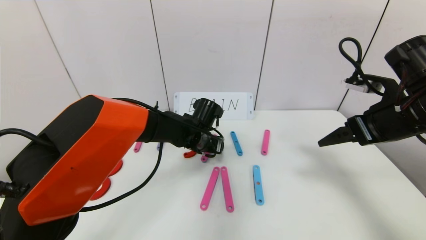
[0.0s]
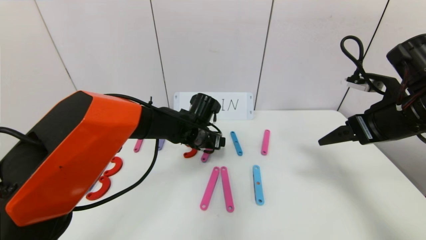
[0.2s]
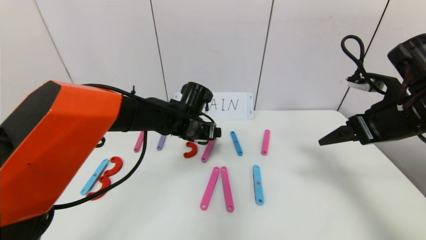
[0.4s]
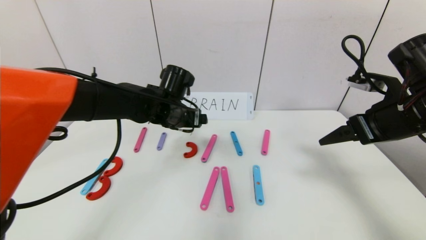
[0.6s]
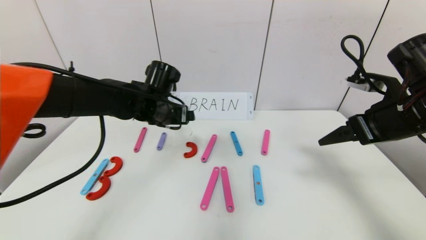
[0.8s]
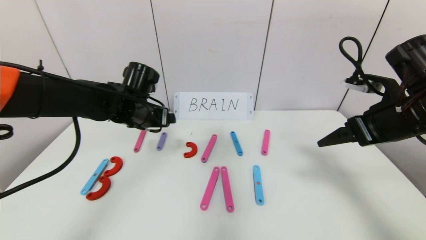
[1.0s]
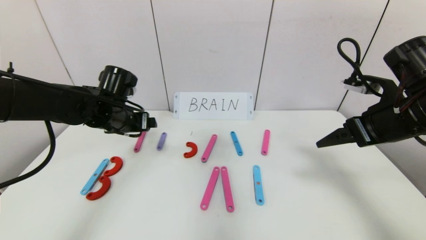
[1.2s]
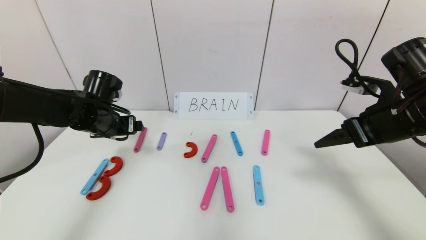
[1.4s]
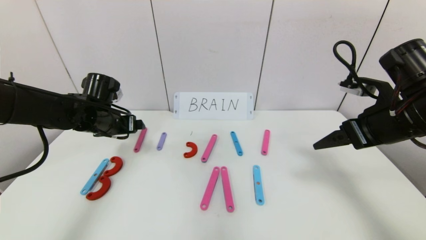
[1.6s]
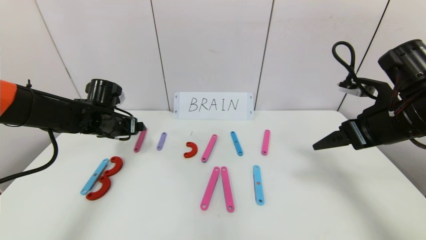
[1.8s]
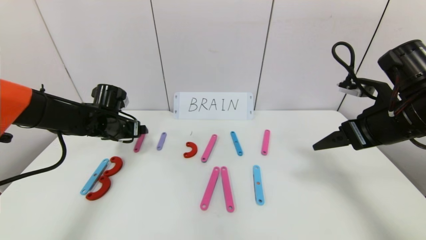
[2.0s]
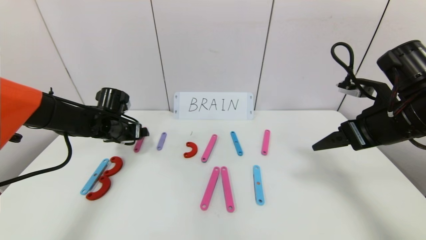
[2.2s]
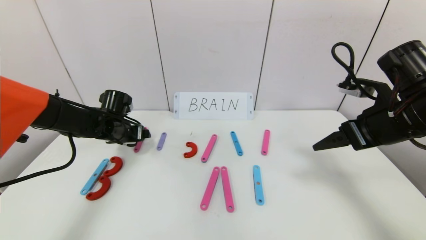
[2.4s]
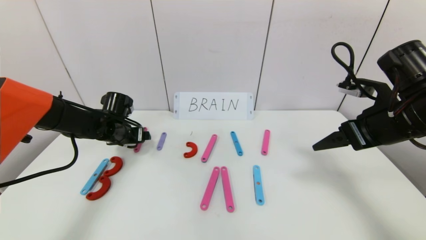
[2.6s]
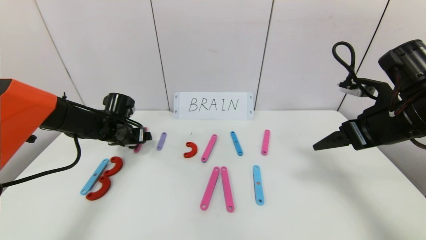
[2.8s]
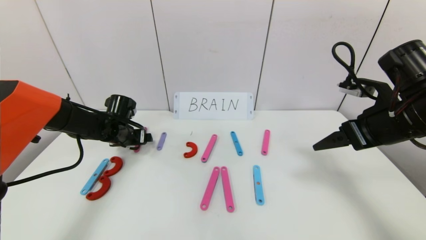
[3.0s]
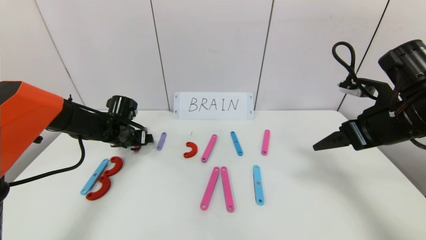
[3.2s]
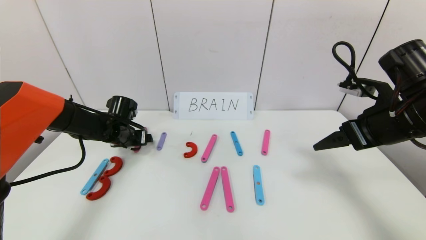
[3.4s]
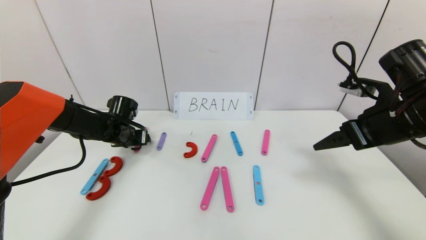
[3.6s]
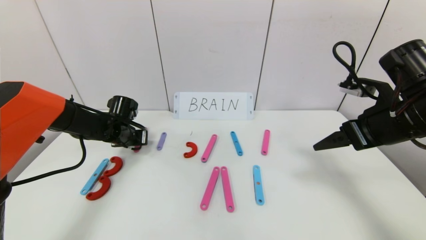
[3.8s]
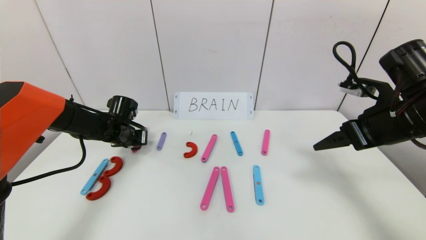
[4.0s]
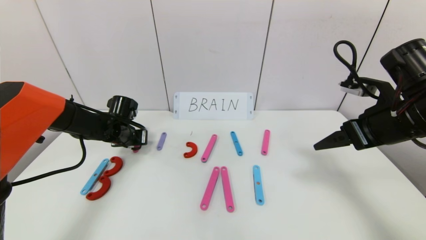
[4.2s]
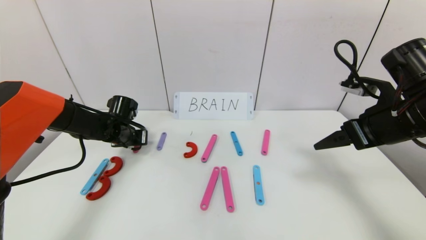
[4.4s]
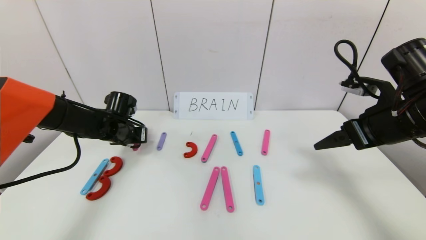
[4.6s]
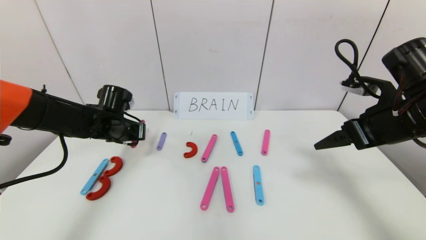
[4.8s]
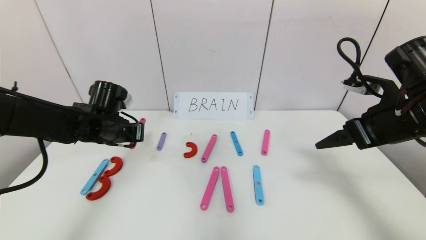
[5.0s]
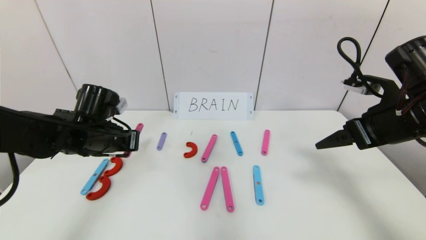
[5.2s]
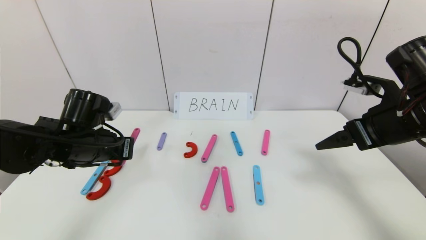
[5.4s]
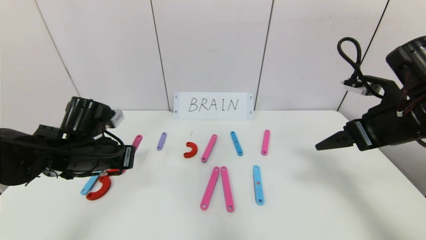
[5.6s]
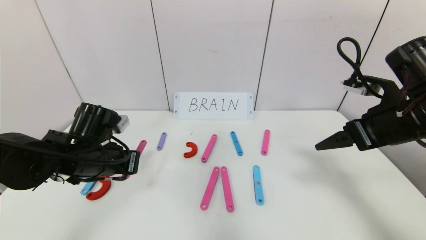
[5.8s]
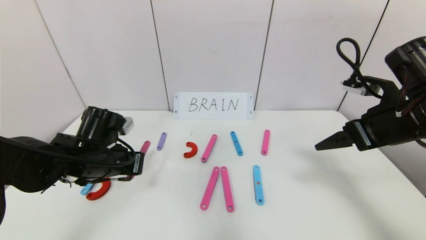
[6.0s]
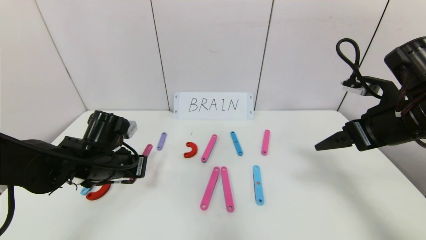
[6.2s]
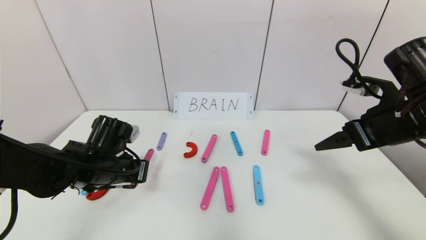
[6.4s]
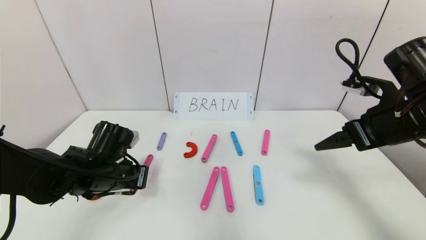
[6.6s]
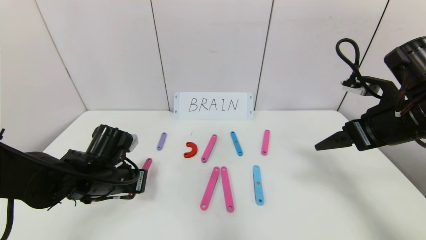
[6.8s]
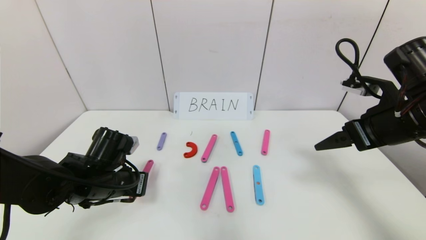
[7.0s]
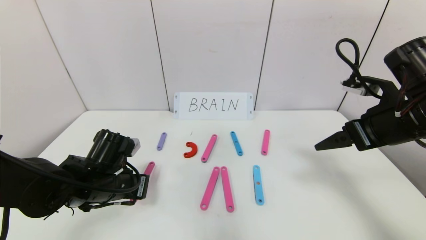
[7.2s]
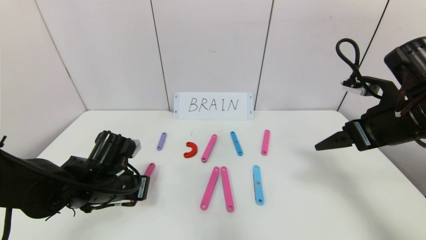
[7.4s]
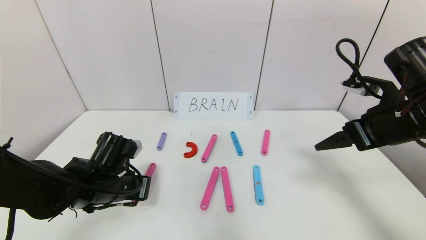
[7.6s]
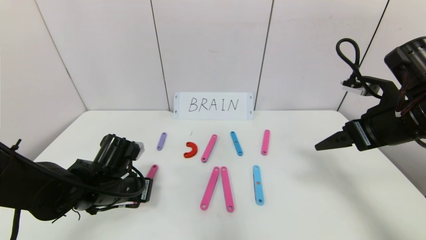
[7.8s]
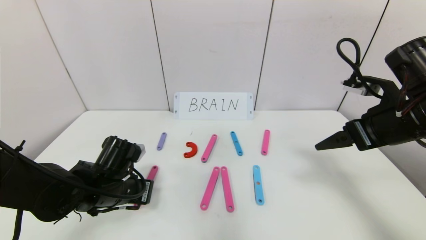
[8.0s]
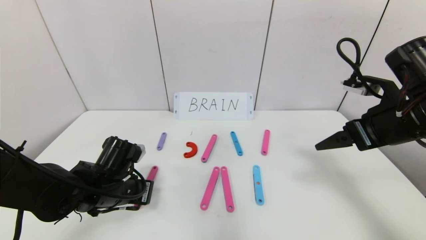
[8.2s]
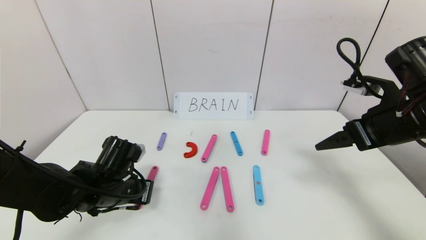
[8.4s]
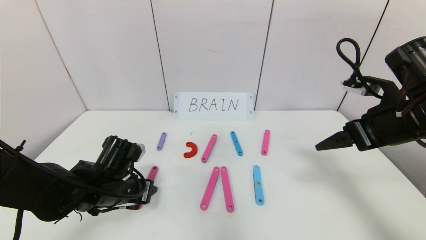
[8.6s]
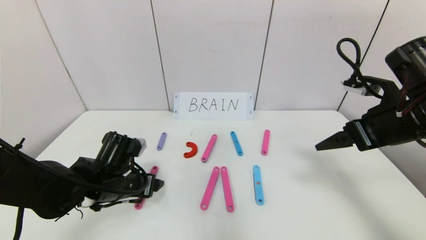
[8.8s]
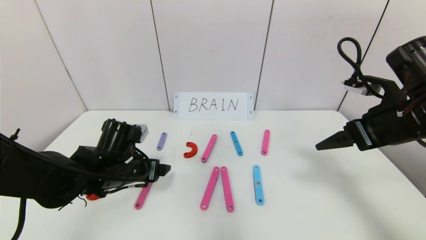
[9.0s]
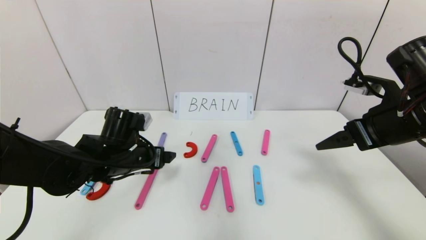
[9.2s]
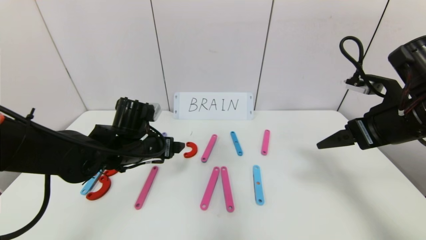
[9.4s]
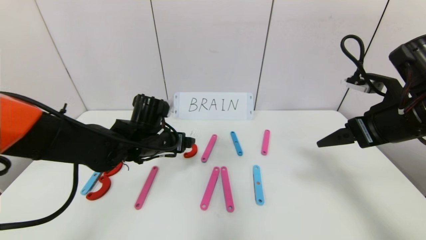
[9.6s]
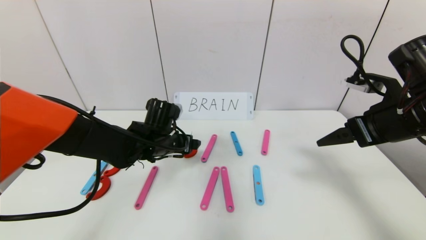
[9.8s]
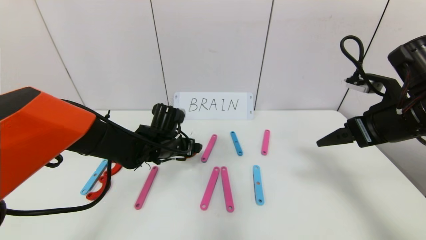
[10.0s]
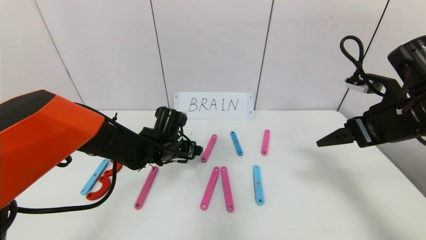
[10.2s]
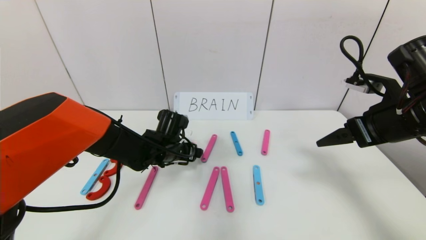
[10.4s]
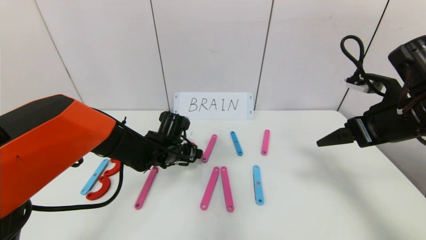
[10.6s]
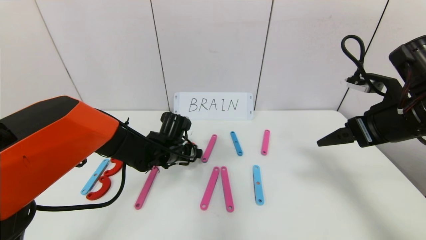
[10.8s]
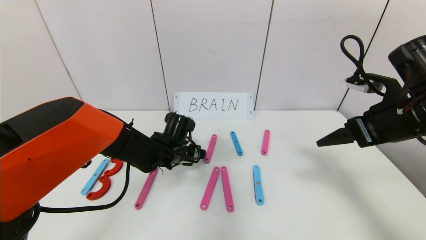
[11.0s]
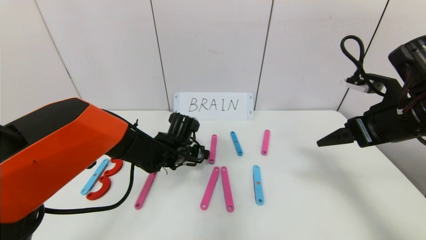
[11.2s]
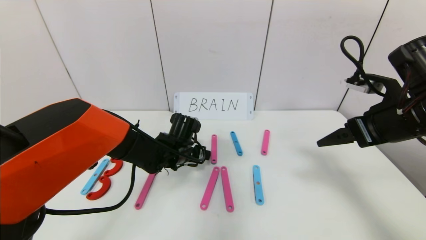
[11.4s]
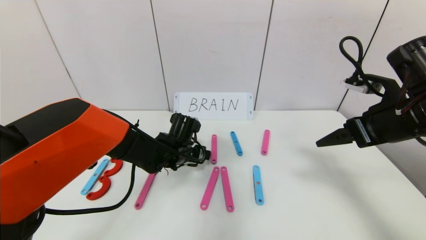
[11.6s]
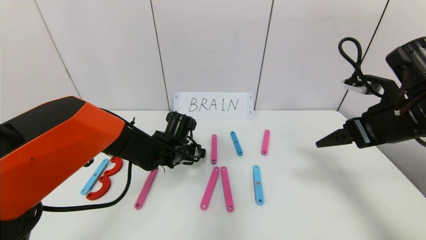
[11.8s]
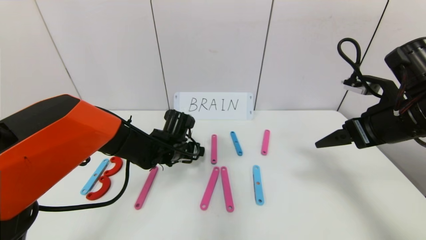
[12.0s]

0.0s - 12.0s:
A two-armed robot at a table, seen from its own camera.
Task of the whole recording: rearrange the word baai as brain.
0.0s - 1.6s: The left gripper is displaced to the left by some 20 cm.
1.6s - 3.0s: The left gripper is displaced downward by some 5 cm.
3.0s - 4.4s: The left gripper closes its fingers.
4.4s - 6.0s: The left gripper travels backward by some 15 cm.
6.0s - 7.6s: The grippers stay close to where they were, moving slightly.
7.6s - 9.0s: The left gripper opens up.
9.0s - 10.4s: The left gripper goes approximately 10 cm forward and to the right.
10.4s - 12.0s: The grippers move only a little.

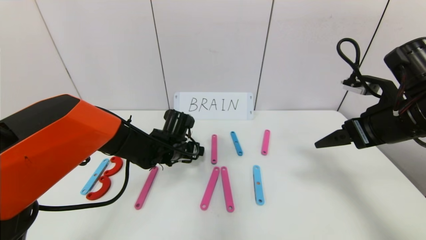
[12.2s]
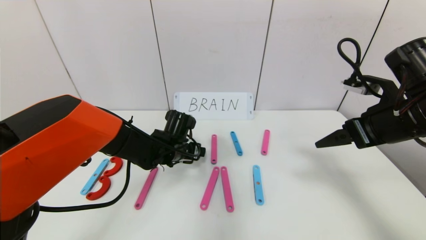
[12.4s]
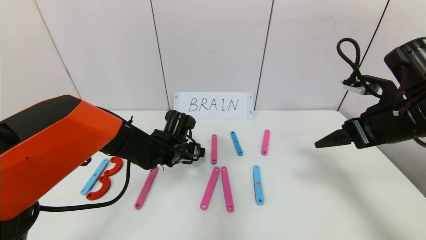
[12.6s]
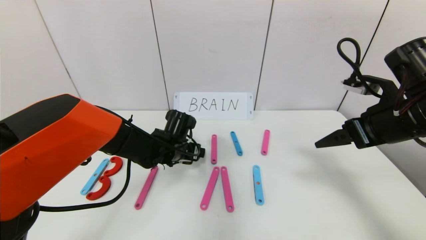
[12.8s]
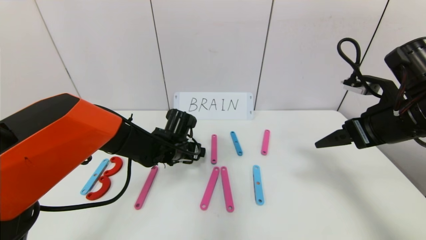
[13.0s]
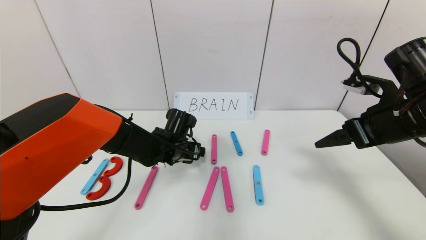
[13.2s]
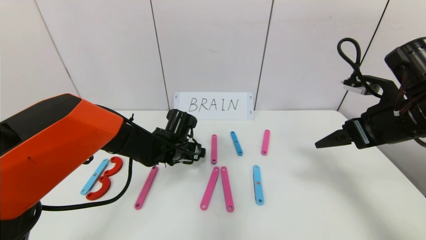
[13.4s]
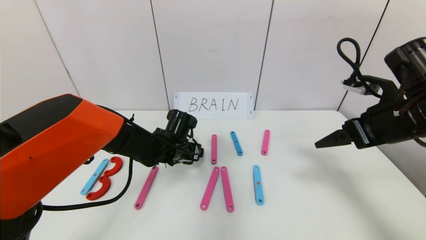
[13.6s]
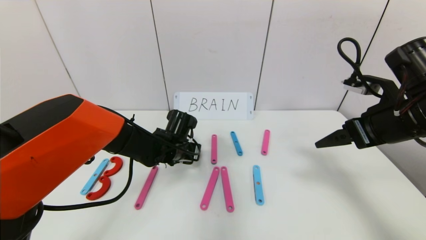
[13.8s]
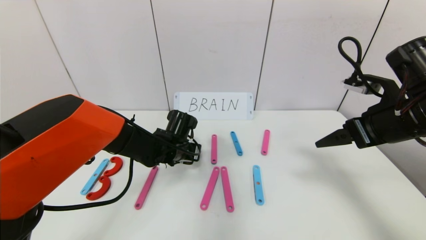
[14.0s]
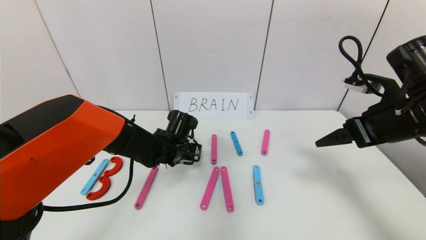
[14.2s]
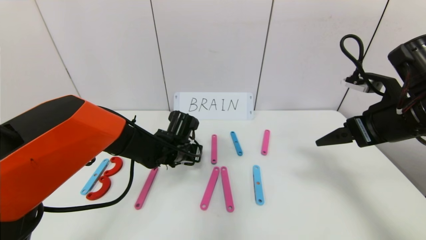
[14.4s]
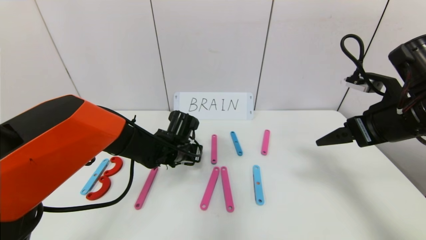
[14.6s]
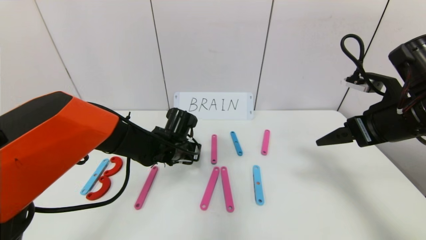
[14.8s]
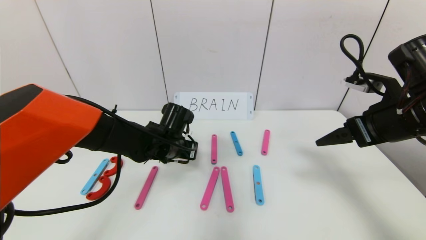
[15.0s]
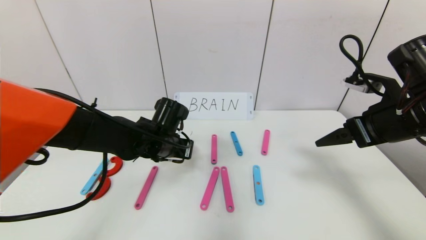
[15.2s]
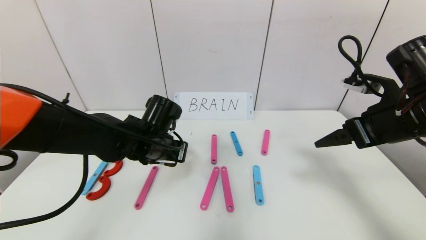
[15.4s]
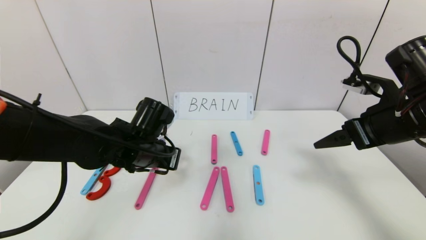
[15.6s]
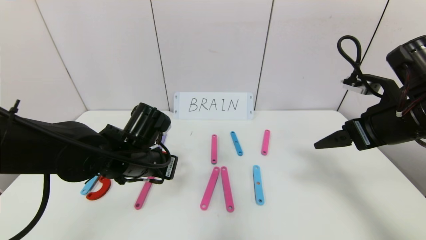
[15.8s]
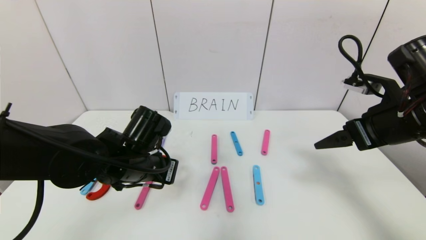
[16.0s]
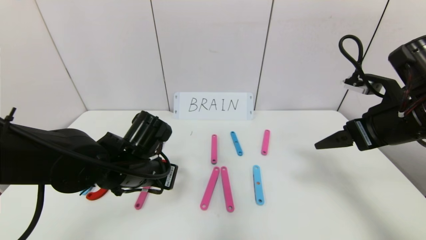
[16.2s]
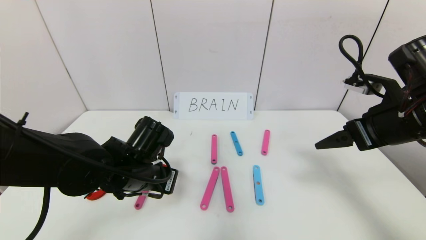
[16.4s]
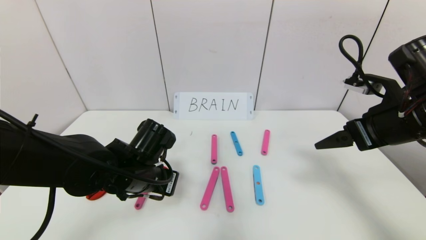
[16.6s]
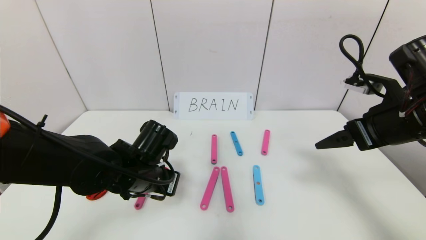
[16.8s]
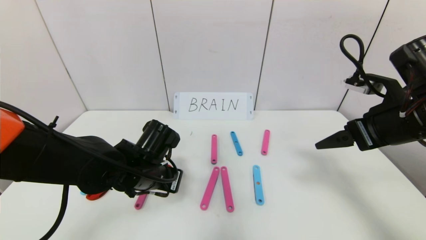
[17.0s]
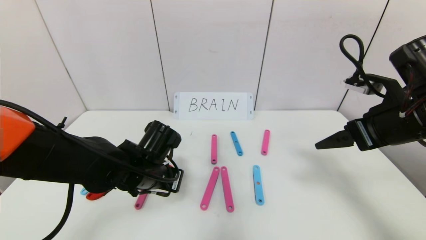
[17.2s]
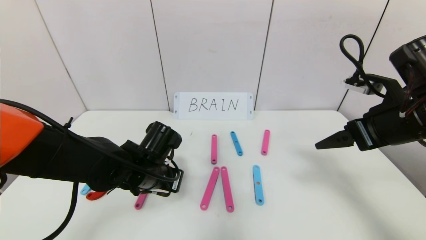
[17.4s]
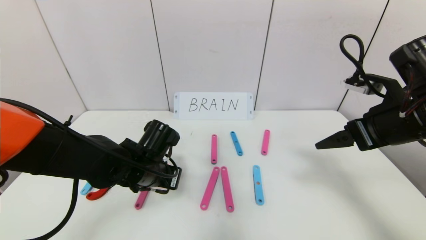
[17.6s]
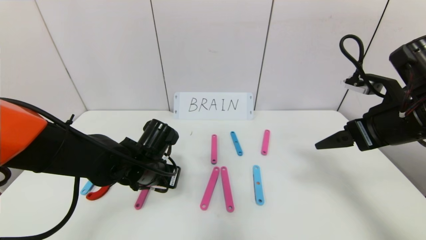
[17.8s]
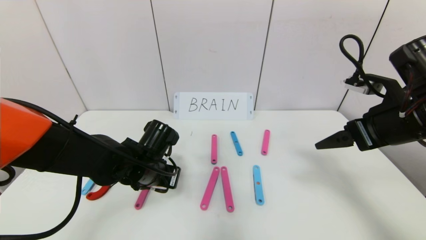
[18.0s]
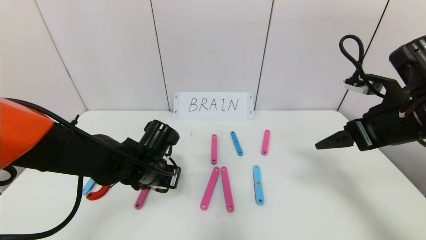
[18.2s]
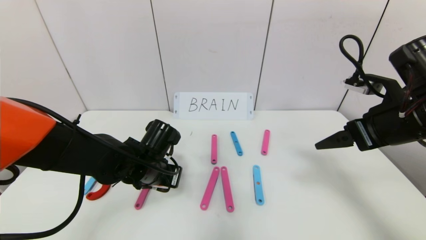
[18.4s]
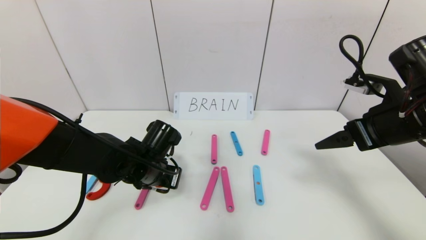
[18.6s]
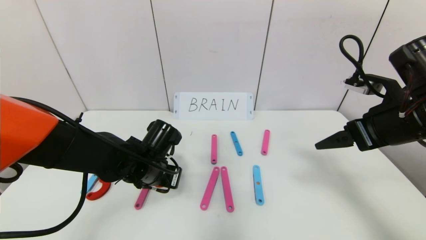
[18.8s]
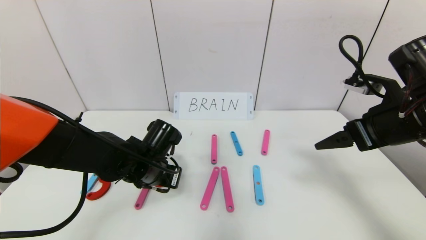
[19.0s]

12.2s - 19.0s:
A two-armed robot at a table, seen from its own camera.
Task of the whole recording: rearrange the word baai as brain.
12.2s - 13.6s: Both grippers stay about where they are.
13.6s - 15.0s: The left gripper closes up.
15.0s - 16.2s: The left gripper is displaced backward by some 10 cm.
16.2s - 17.6s: The grippers make only small movements.
17.6s - 19.0s: Neither gripper changes place.
